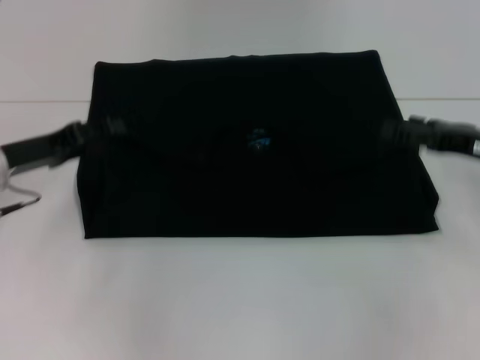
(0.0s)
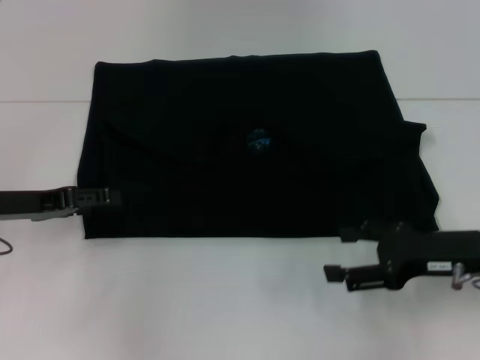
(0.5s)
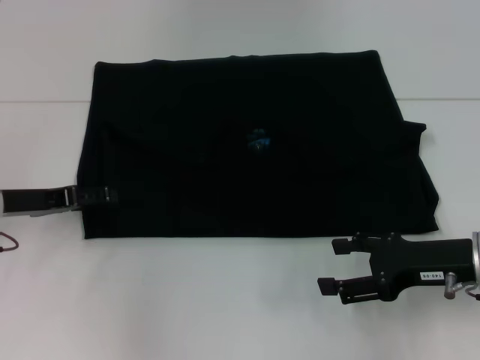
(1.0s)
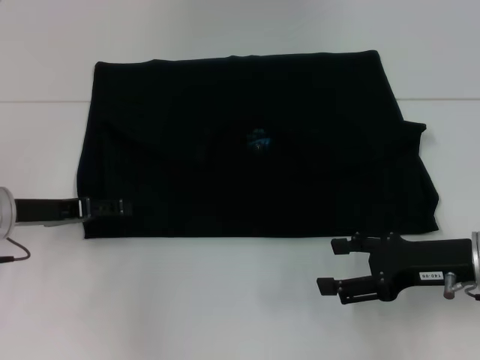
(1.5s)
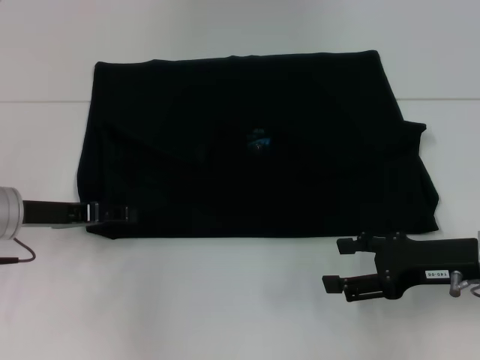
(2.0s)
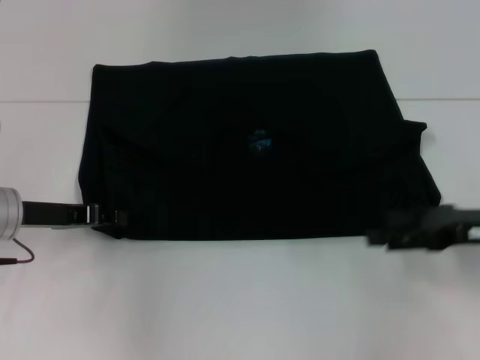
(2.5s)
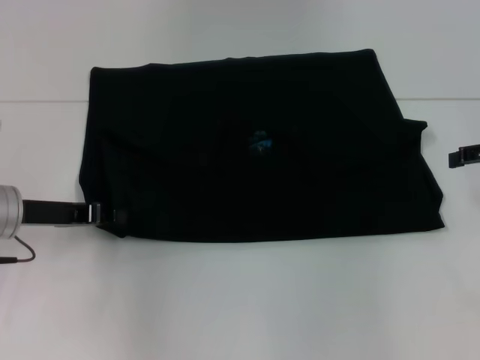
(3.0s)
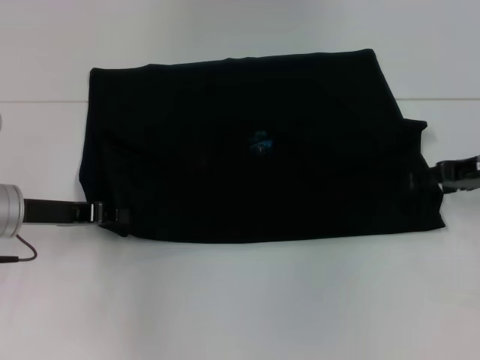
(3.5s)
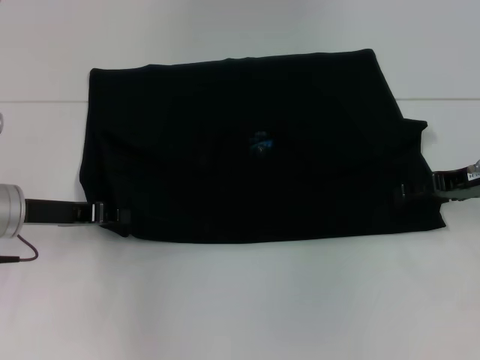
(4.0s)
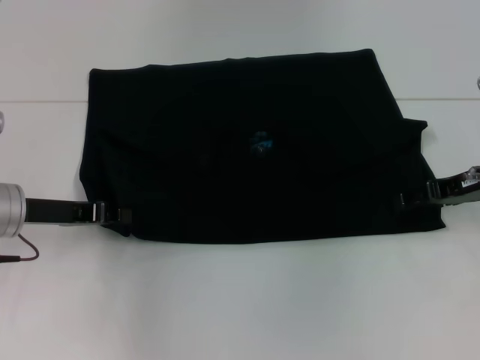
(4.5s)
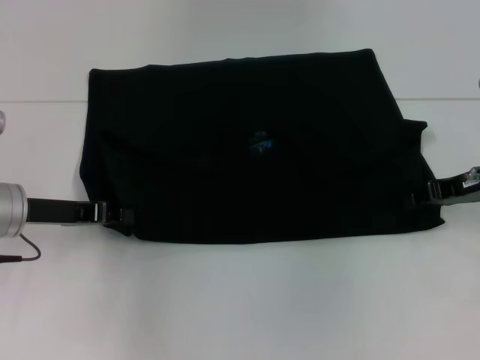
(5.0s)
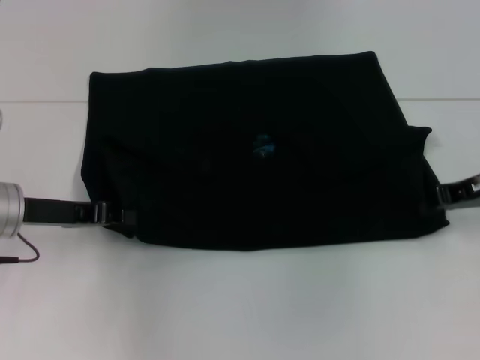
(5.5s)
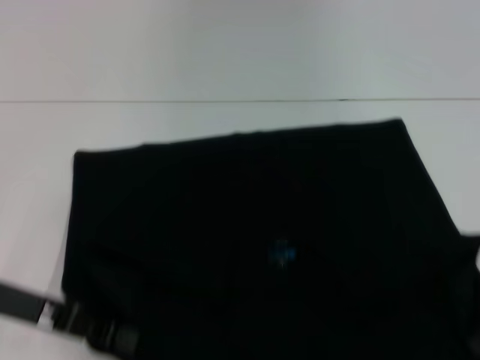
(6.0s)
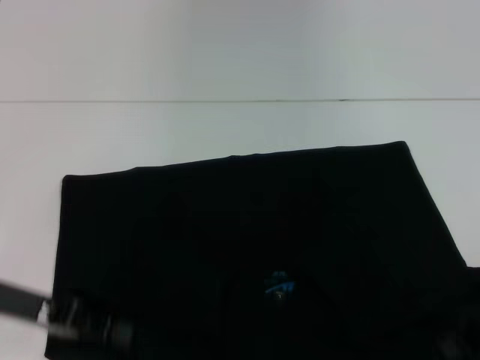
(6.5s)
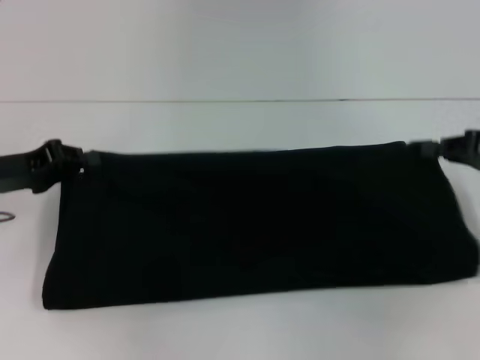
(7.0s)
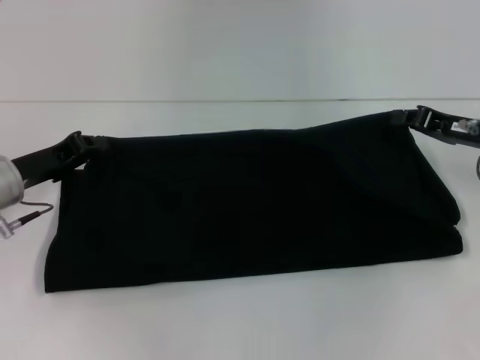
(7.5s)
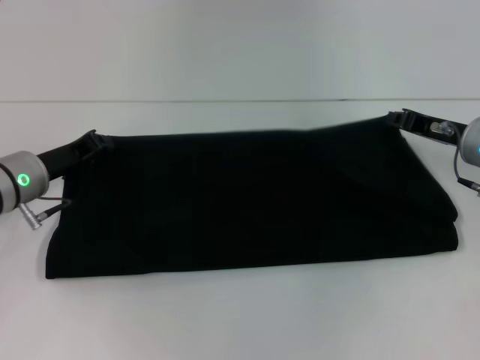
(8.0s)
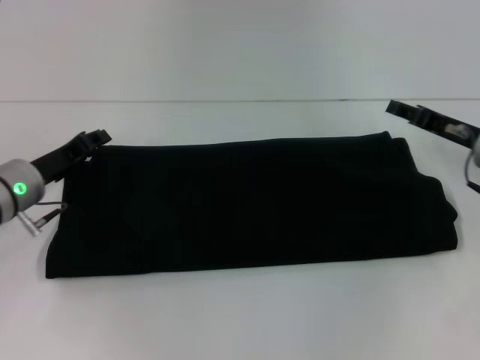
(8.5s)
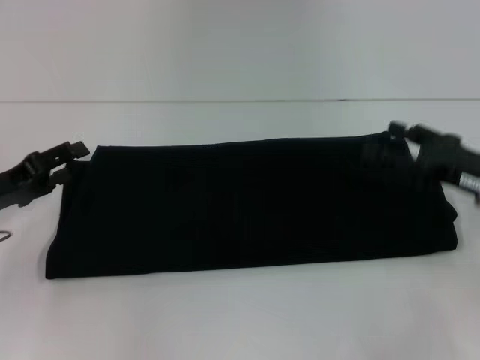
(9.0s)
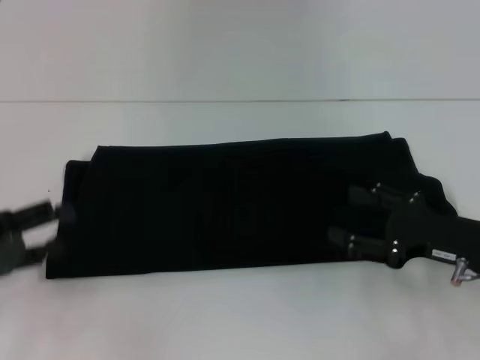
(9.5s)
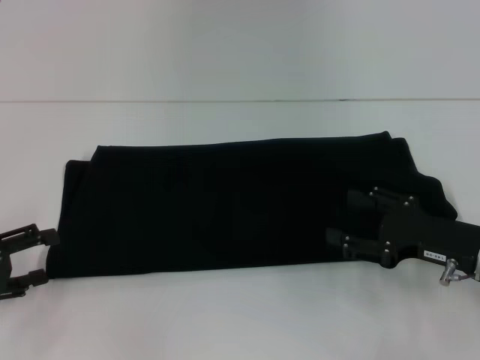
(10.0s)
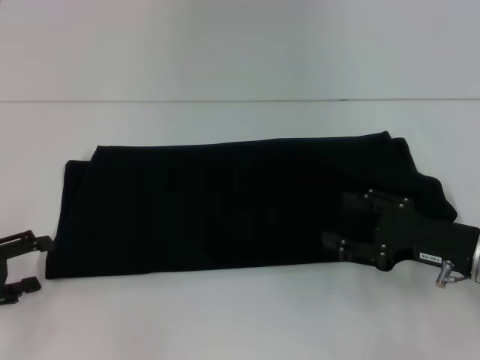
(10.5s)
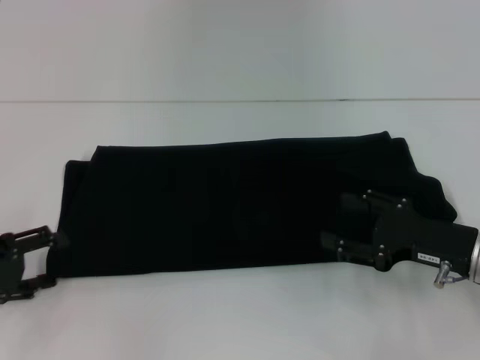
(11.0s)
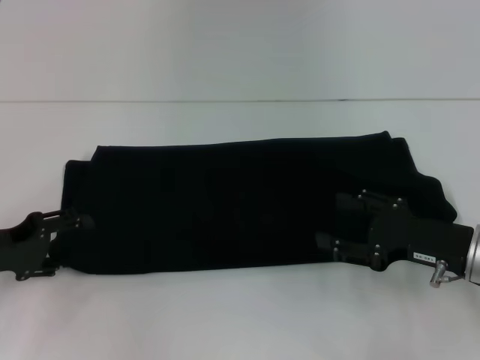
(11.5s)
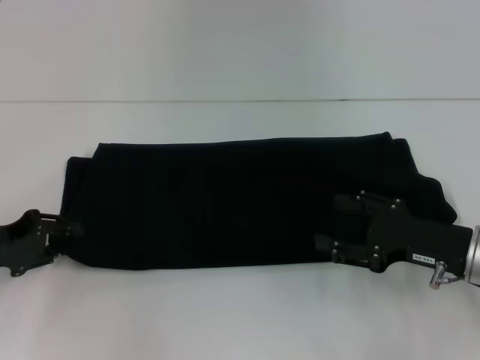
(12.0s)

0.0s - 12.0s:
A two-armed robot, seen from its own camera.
Step, 0.0s - 6.0s: Pull the clothes with your left hand.
Step, 0.0s - 6.0s: Pull the clothes with your right hand.
Step, 6.5s - 8.5s: Fold the clothes with your right hand.
0.0s - 2.0s: The right gripper travels backward by roughly 5 cm.
2.0s - 4.0s: The left gripper closes; the right gripper goes approximately 10 cm forward.
4.0s - 6.0s: Both grippers travel together backward, about 10 cm. The right gripper closes up.
6.0s - 8.0s: The left gripper is displaced forward by approximately 10 cm. Meanwhile the right gripper travels forward and to the left by about 10 cm.
8.0s - 10.0s: The left gripper moves backward and to the left, some 15 cm, and opens its fingers, while the right gripper is displaced backward by approximately 10 cm, and opens.
10.0s - 12.0s: The left gripper ends up about 5 cm from where it was.

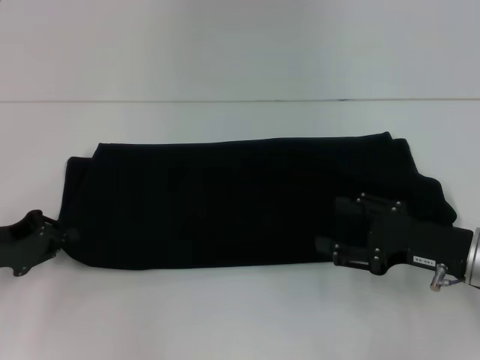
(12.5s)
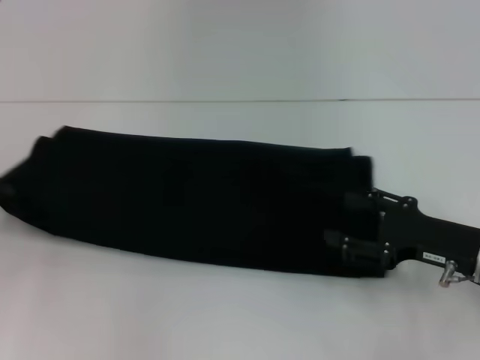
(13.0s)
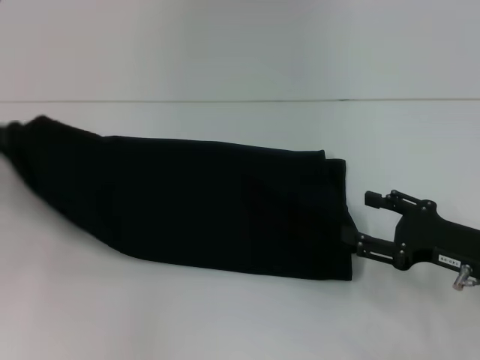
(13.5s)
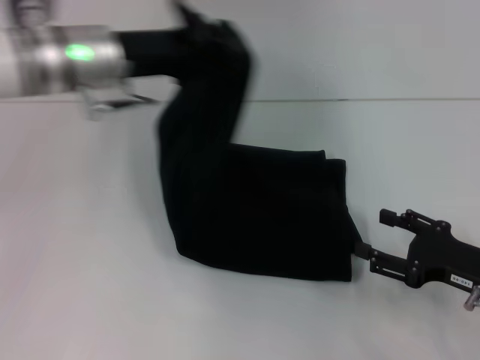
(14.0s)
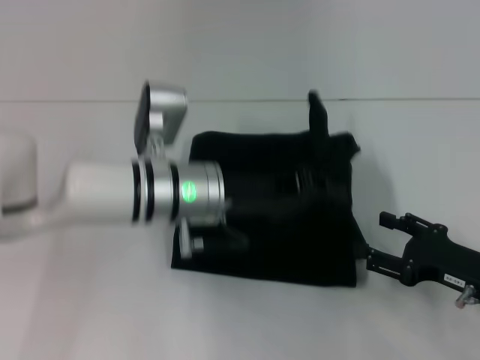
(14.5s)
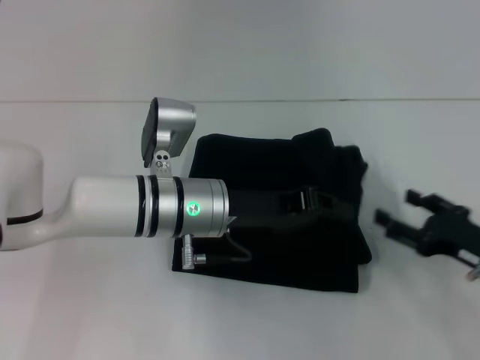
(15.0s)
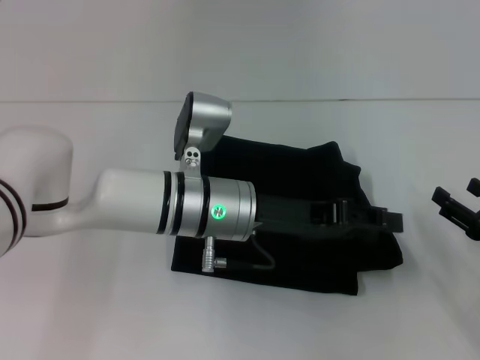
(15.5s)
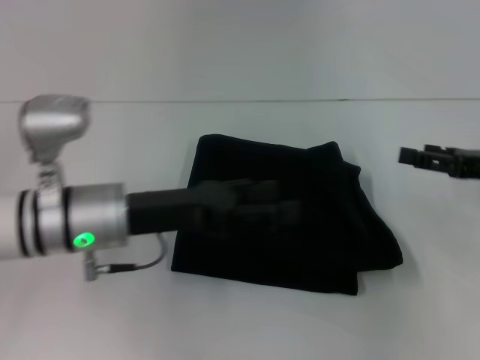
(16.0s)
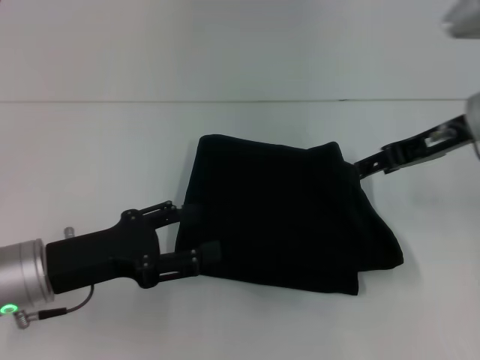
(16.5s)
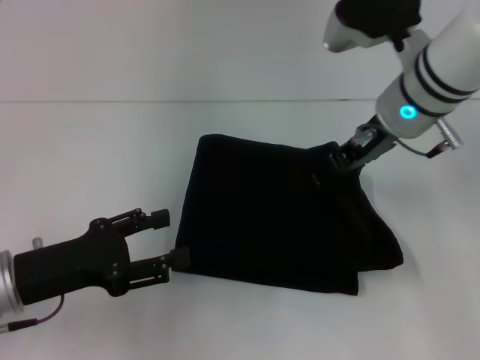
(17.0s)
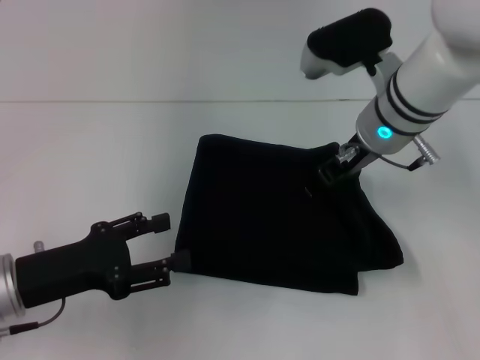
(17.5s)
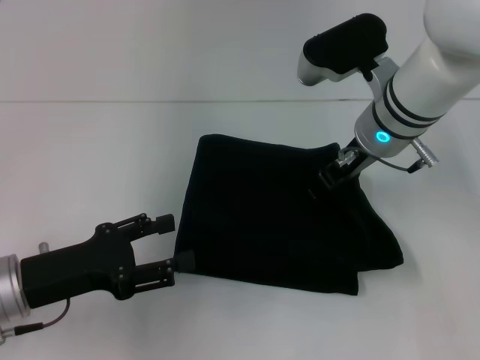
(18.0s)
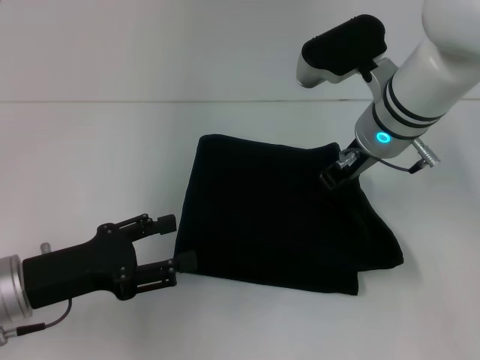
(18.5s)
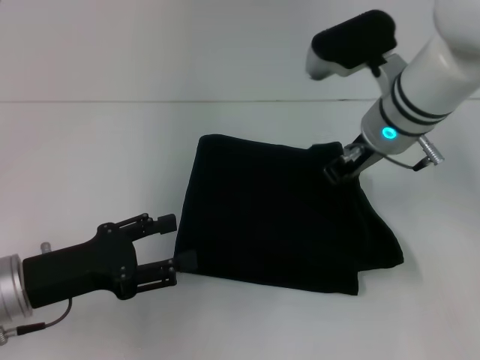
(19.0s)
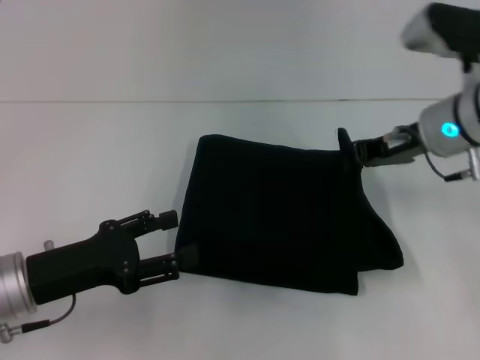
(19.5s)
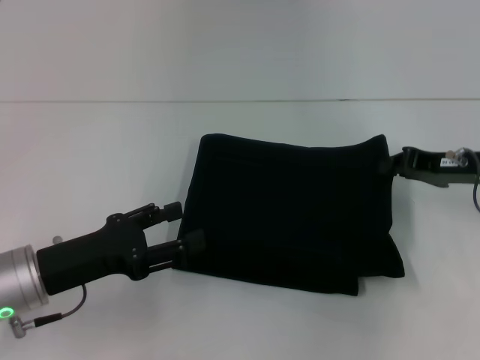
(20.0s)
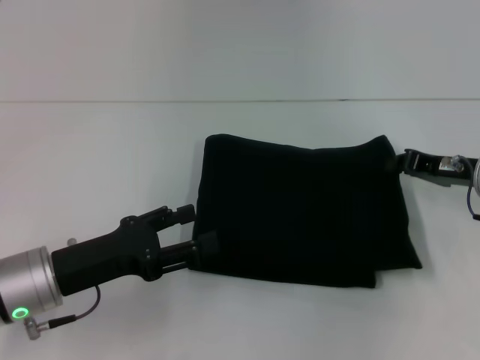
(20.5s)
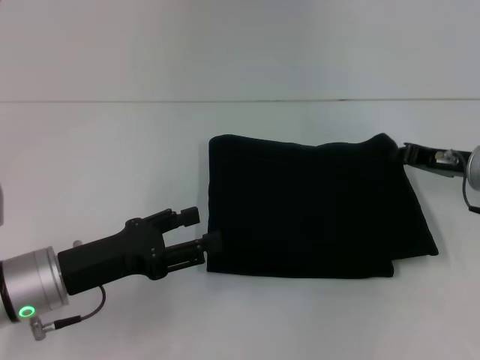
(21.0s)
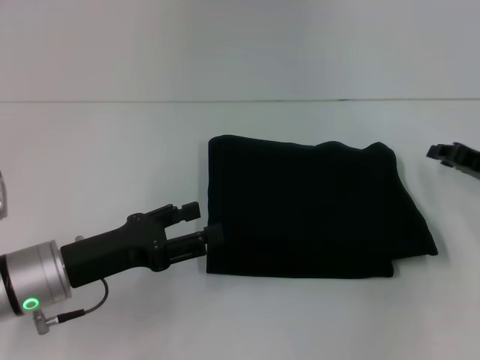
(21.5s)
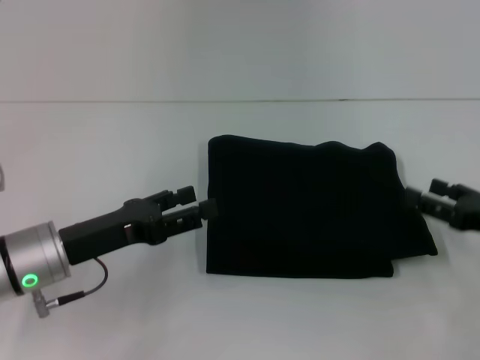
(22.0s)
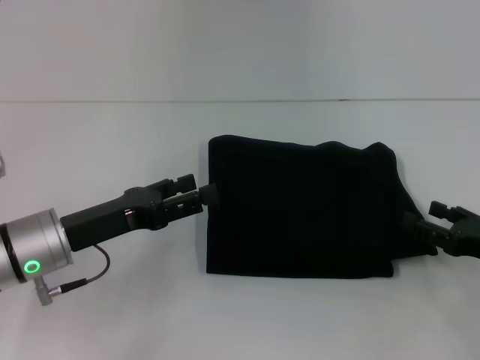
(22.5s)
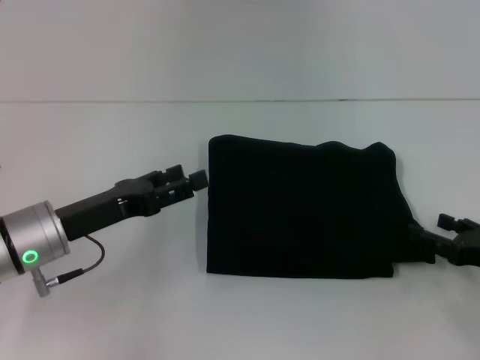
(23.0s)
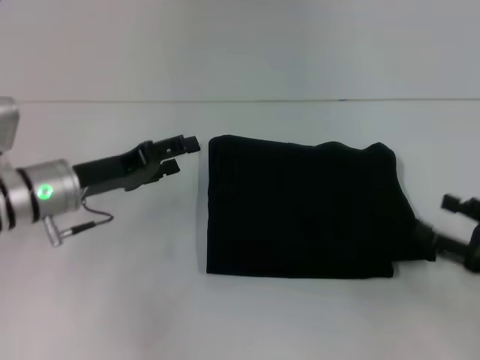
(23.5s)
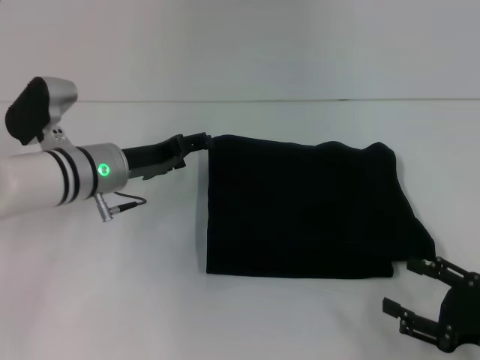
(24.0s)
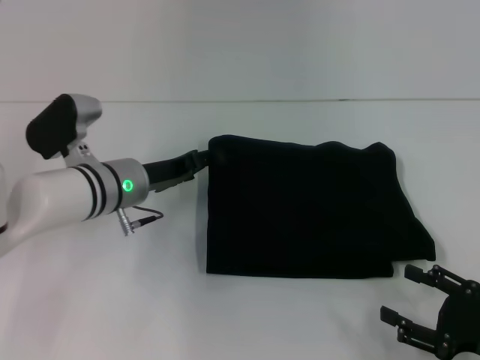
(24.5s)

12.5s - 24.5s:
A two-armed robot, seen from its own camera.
Step, 12.5s - 15.5s: Fold the clothes with your left hand.
12.5s - 14.5s: The right gripper moves approximately 5 cm; the left gripper shifts approximately 25 cm to the right.
14.5s - 16.5s: The right gripper travels upward and forward by about 20 cm. The left gripper heads to the left and backward, covering about 15 cm, and opens up.
16.5s - 18.5s: The right gripper travels to the left by about 10 cm, and closes up.
18.5s - 20.5s: The right gripper moves to the right and downward, roughly 15 cm, and closes its fingers.
20.5s - 22.5s: The right gripper travels backward by some 10 cm, and opens up.
22.5s - 24.5s: The left gripper shifts about 10 cm forward and to the right; the right gripper moves backward, some 10 cm.

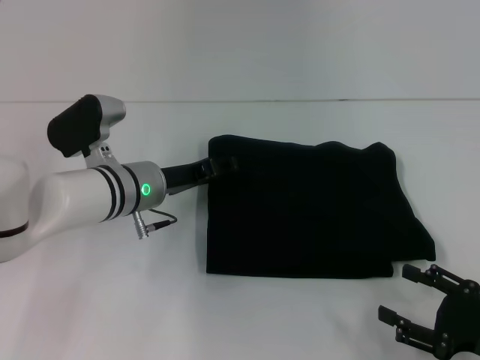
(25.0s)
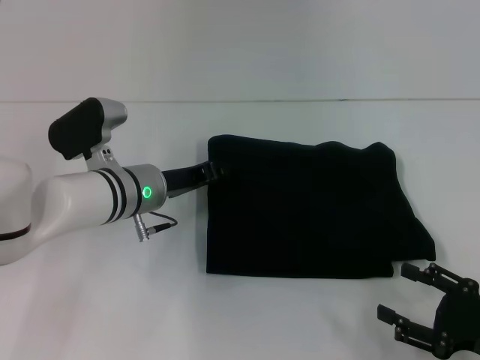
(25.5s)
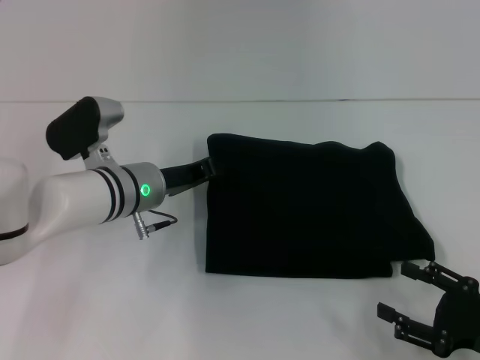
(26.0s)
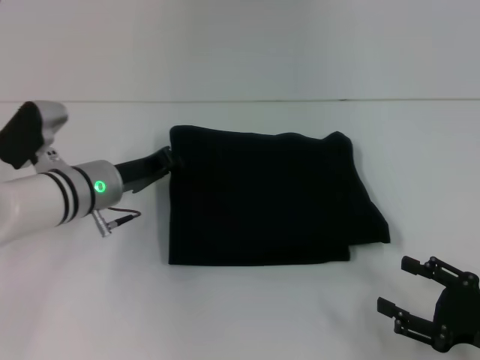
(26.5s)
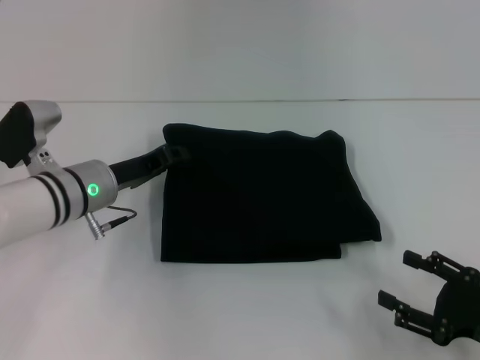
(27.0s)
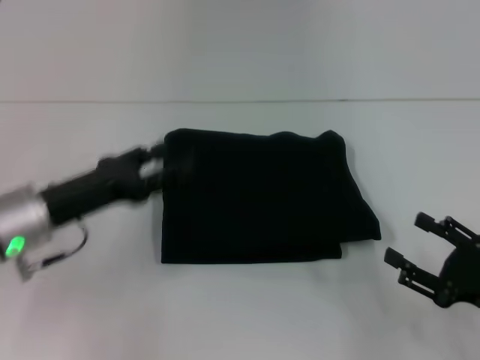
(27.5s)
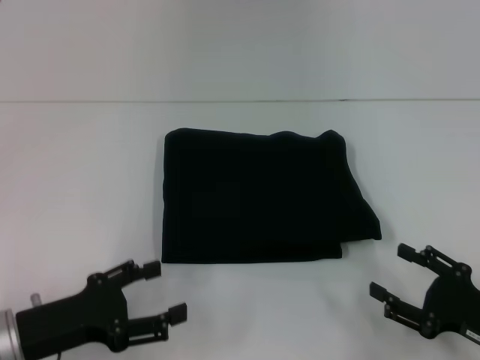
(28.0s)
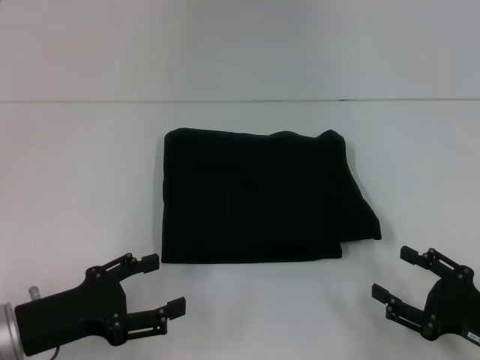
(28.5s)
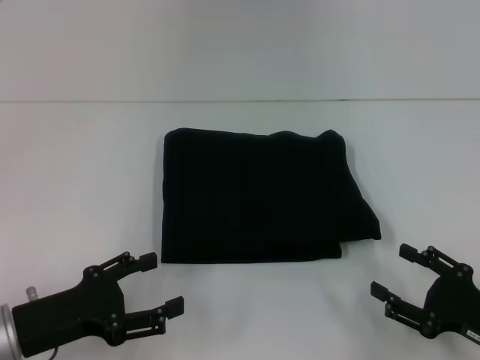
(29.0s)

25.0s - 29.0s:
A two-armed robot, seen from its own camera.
25.0s - 27.0s: The left gripper moves to the left, roughly 5 cm, and closes.
27.0s - 29.0s: The left gripper goes some 15 cm backward and to the left, and opens up.
